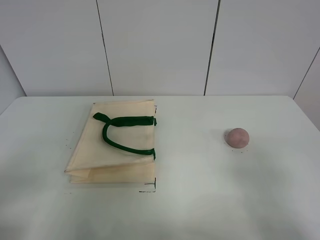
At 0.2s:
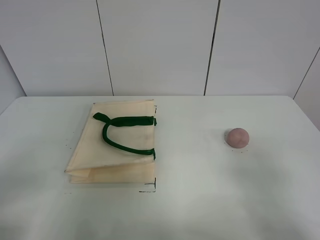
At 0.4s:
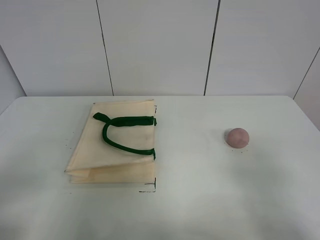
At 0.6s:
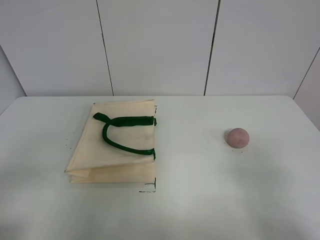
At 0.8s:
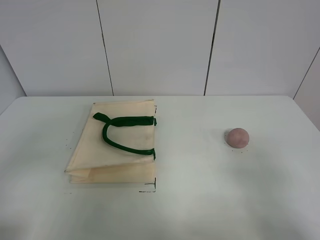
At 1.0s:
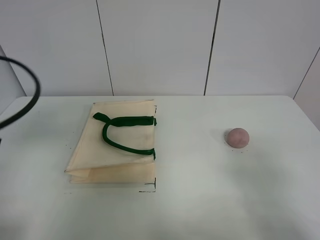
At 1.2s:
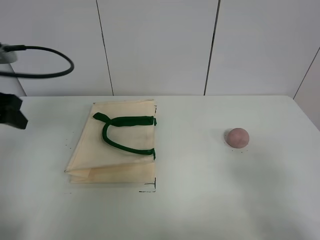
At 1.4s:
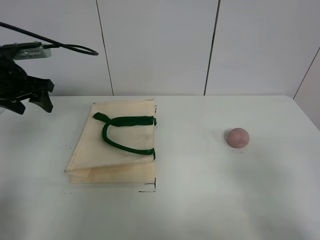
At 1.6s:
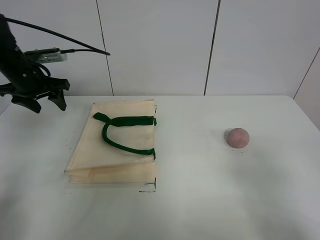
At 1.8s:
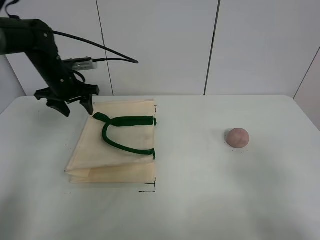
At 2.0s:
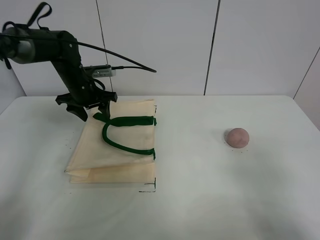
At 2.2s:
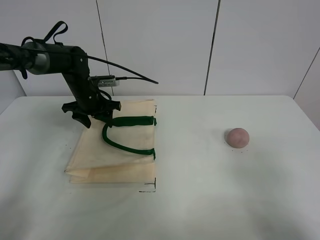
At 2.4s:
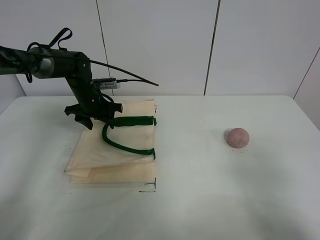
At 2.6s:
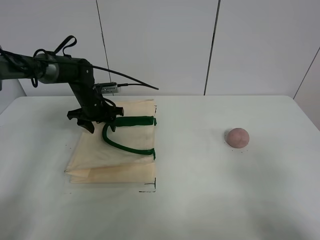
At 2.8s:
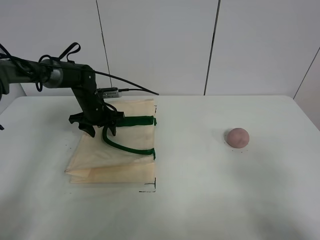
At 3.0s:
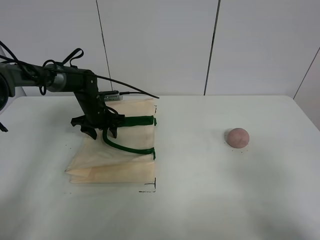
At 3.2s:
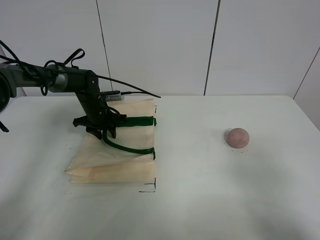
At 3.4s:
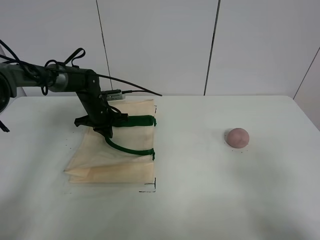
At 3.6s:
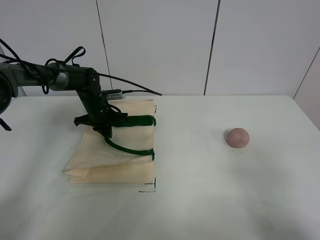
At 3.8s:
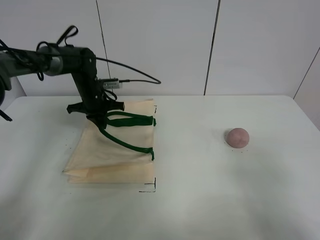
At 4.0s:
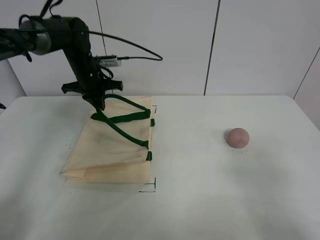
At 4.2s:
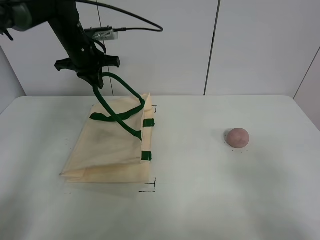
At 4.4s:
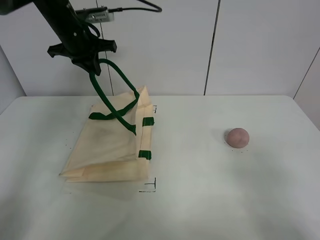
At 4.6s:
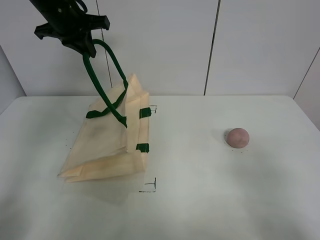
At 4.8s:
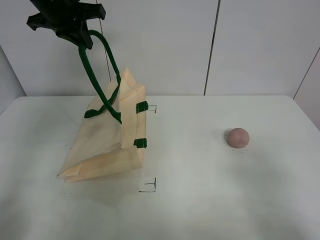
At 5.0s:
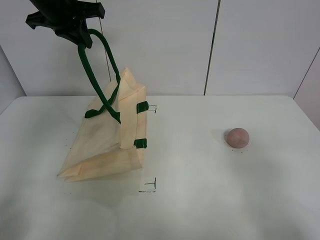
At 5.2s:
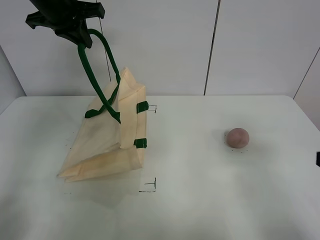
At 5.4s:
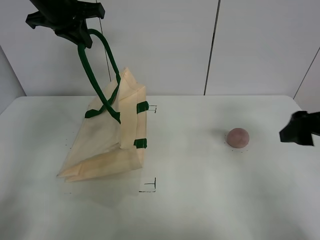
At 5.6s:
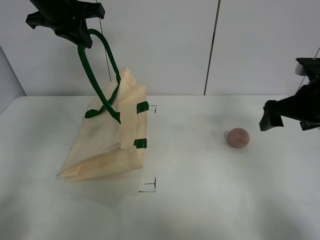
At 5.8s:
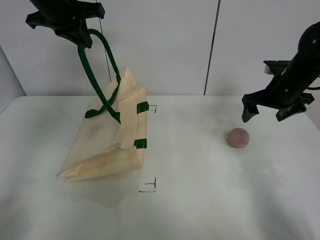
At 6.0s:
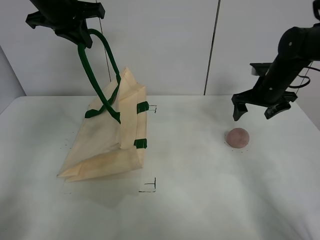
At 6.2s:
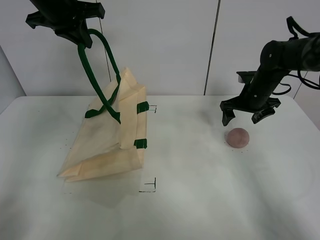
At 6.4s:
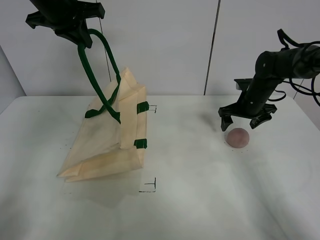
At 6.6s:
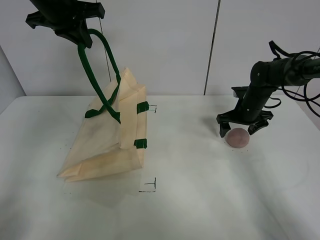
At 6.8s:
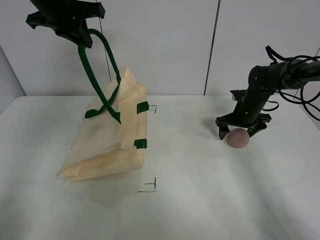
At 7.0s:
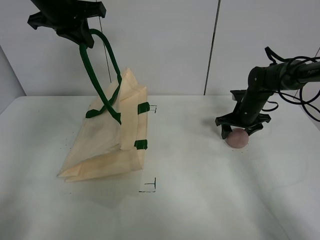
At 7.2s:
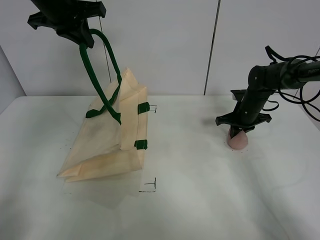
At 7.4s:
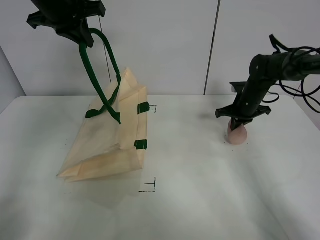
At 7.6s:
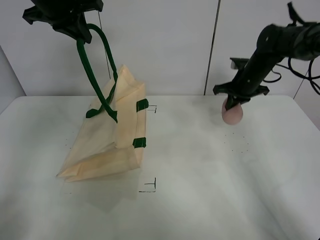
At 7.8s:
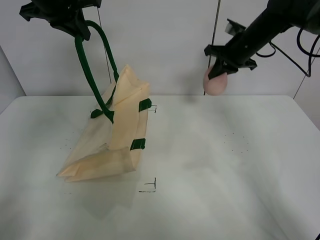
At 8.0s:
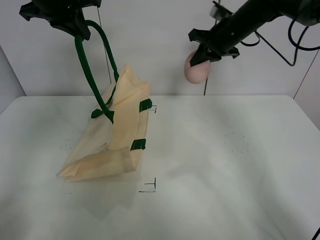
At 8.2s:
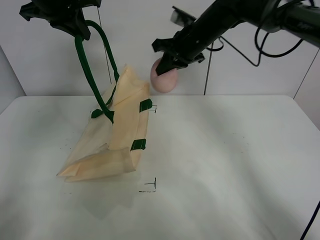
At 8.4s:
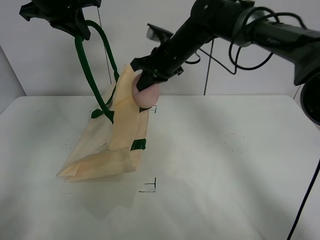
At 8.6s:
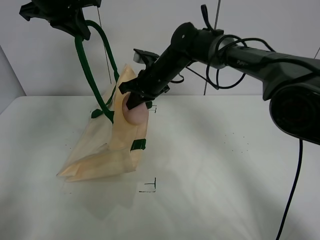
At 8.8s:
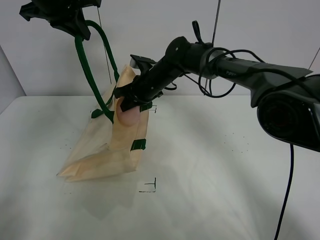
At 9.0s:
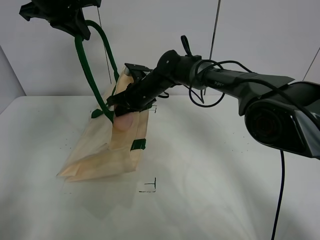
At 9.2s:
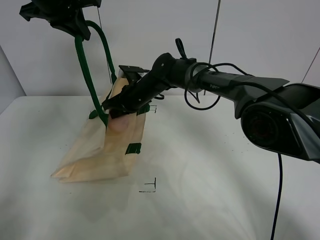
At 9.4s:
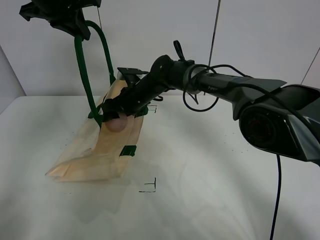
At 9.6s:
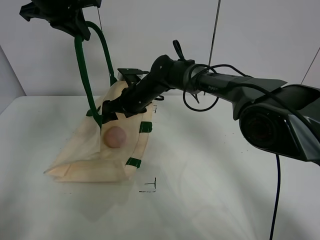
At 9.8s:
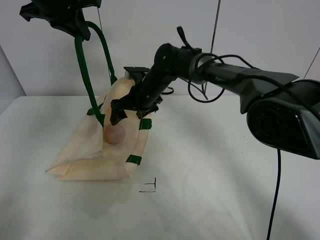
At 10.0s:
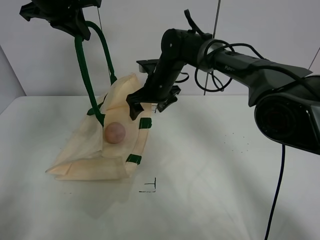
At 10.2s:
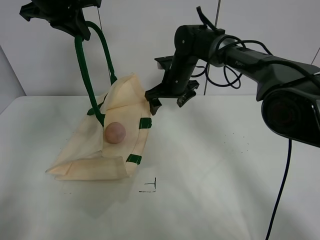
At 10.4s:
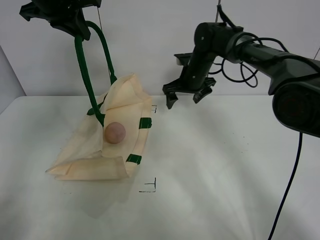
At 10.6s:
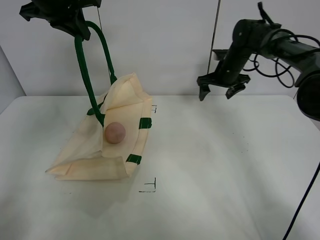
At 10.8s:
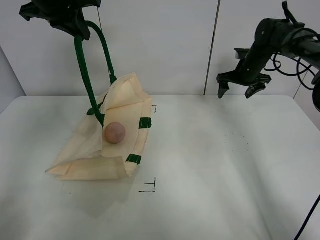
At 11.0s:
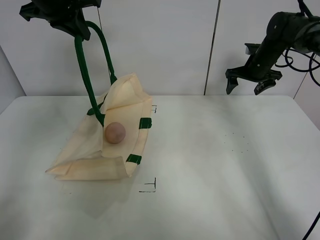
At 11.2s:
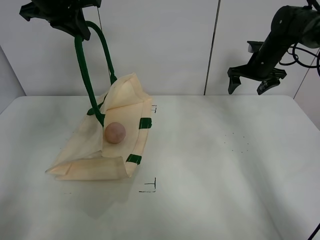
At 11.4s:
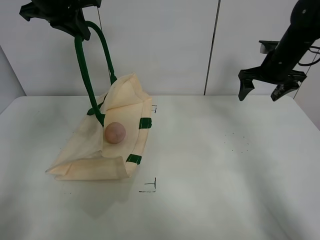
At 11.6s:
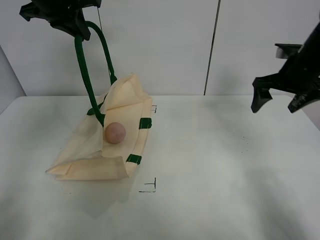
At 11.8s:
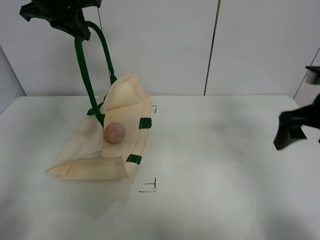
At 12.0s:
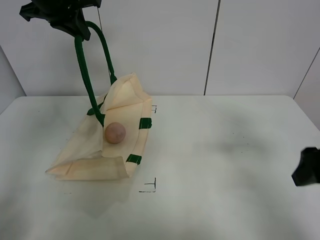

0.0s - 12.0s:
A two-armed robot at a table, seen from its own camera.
Task of the whole recording: open the white linen bag and put the peach in the bag.
Step, 0.0s - 4.8s: Lift the handbag with left gripper.
Step, 5.0s - 7.4s: Grasp the peach with right gripper.
Step, 7.6s - 9.8s: Place the peach in the handbag with right gripper.
1.6s - 3.0s: The left gripper moves downward, to the right and forward, some 20 cm.
3.0s - 4.4s: The left gripper travels upward by roughly 20 cm, and closes up.
4.4s - 6.0s: The left gripper travels upward by about 10 cm; the right gripper heads forward, covering approximately 40 cm.
6.0s - 7.6s: The right gripper shifts approximately 10 cm downward and forward, and closes its fingers.
7.6s - 9.0s: The right gripper heads to the left, covering about 25 cm.
9.0s - 10.4s: The right gripper heads to the right, covering approximately 10 cm, and opens.
10.4s - 12.0s: The right gripper shifts approximately 35 cm backward and to the right.

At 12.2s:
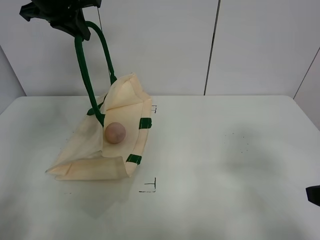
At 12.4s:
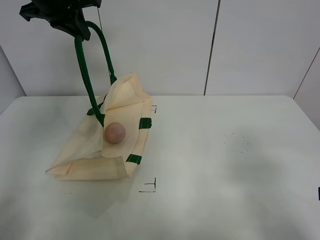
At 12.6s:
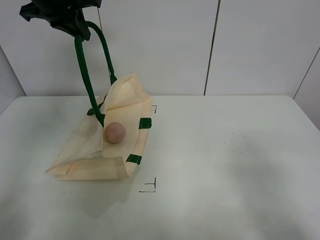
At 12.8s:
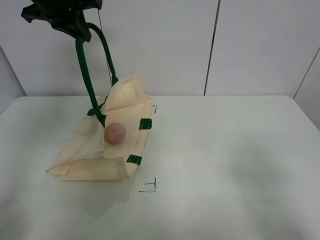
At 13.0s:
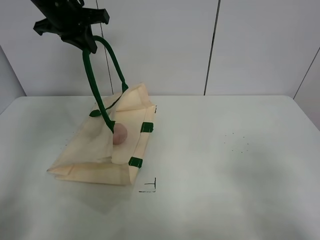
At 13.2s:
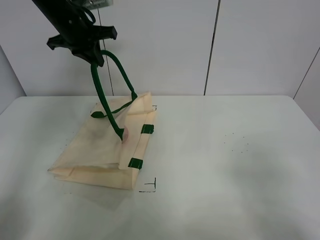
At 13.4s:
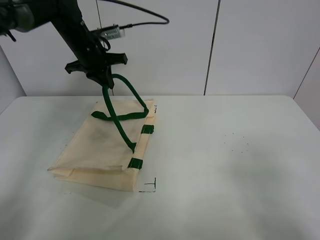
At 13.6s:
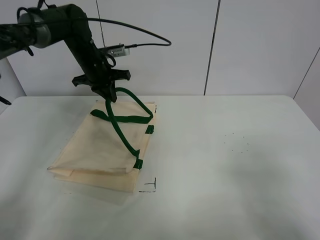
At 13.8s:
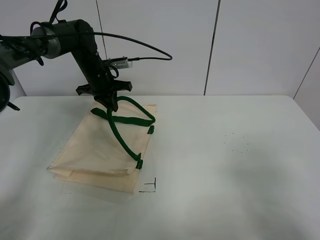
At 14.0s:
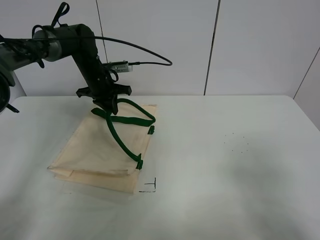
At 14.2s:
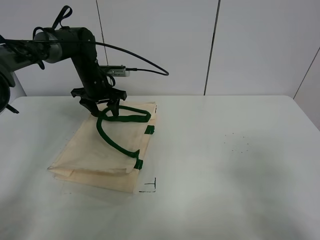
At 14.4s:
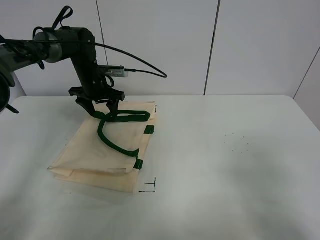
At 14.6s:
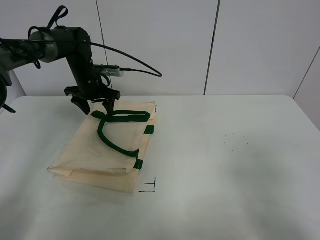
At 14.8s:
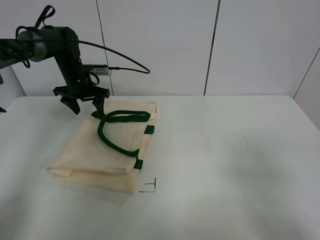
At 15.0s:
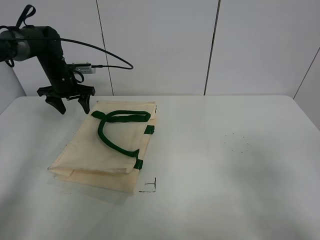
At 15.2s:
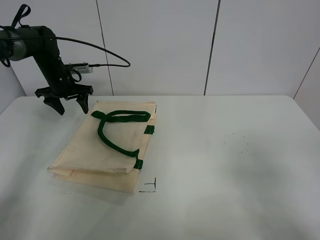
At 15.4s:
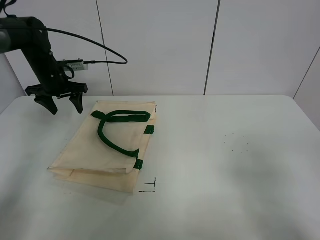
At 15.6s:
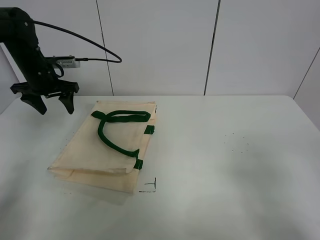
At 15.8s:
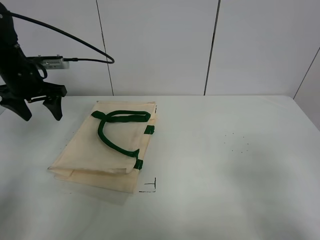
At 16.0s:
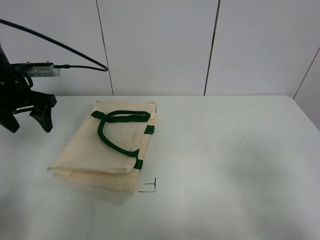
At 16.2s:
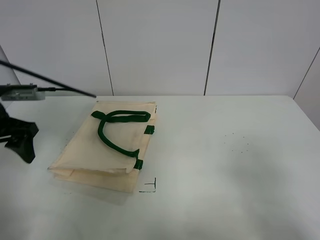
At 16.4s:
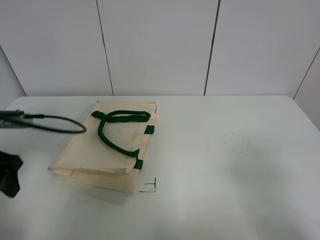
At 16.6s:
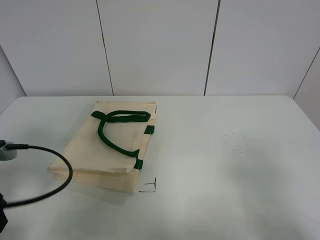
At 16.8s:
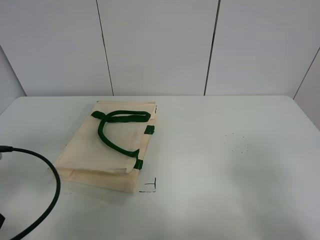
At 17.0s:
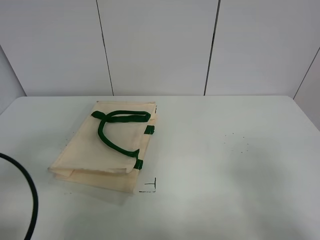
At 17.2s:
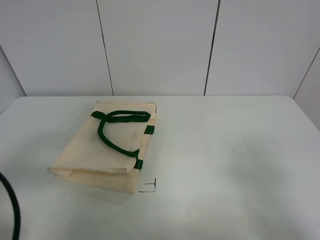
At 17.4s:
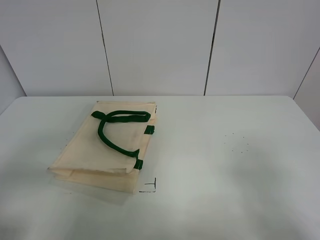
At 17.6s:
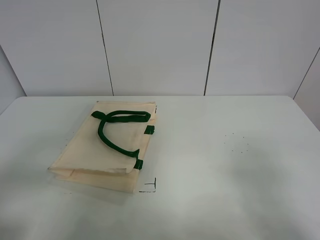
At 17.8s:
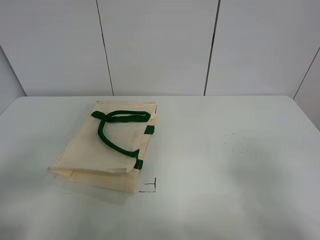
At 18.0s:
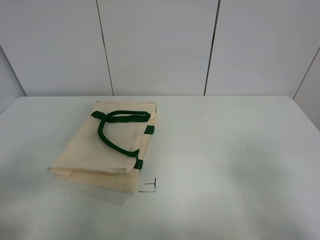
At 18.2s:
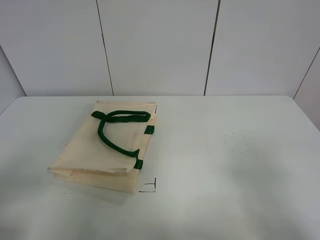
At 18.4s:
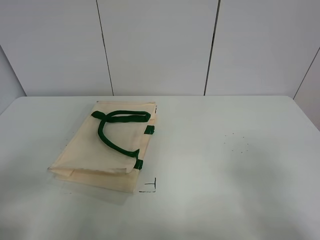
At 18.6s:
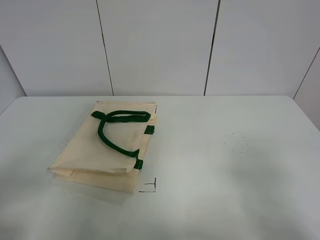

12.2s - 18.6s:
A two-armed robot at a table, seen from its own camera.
Task of the whole recording: open the white linen bag and put the peach in the bag.
Step, 12.2s - 14.4s: Put down the handbag with left gripper.
12.2s - 13.8s: The left gripper heads downward and forward, covering approximately 20 cm. Meanwhile the right gripper travels backward by about 10 cm.
13.8s - 15.4s: The left gripper moves to the left, some 10 cm, and opens its fingers.
15.4s - 17.0s: The left gripper is displaced backward by roughly 40 cm.
17.0s - 18.6s: The left gripper shifts approximately 10 cm backward.
